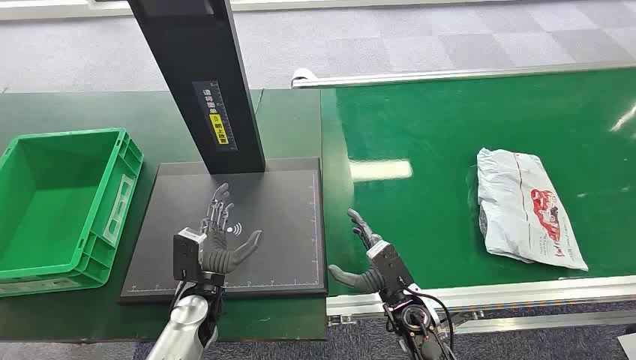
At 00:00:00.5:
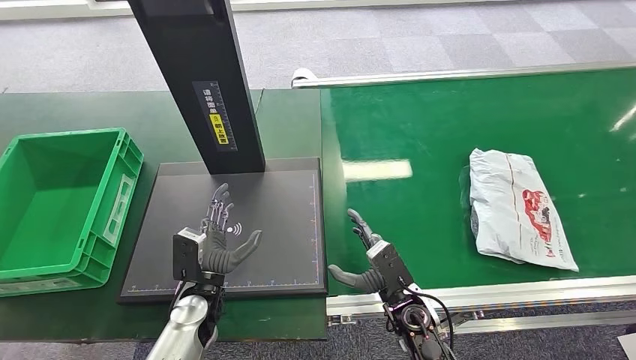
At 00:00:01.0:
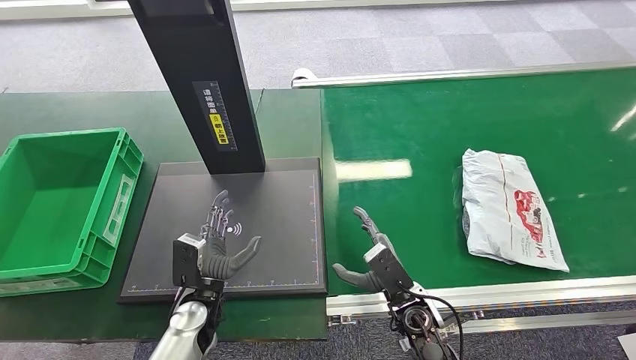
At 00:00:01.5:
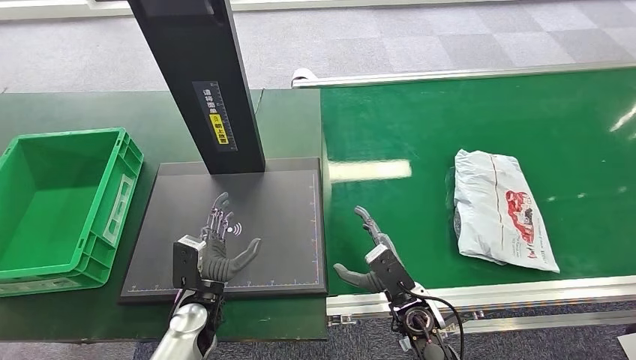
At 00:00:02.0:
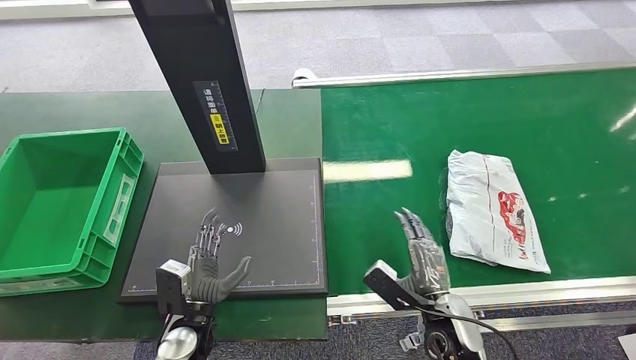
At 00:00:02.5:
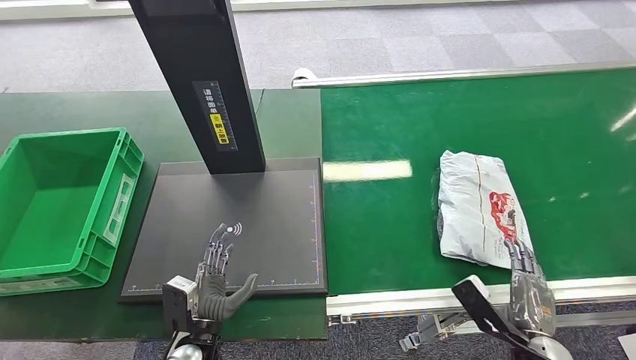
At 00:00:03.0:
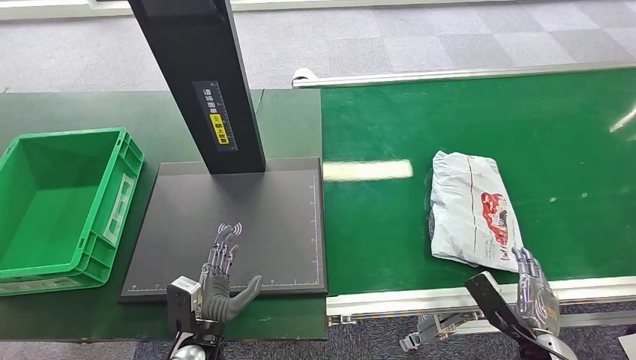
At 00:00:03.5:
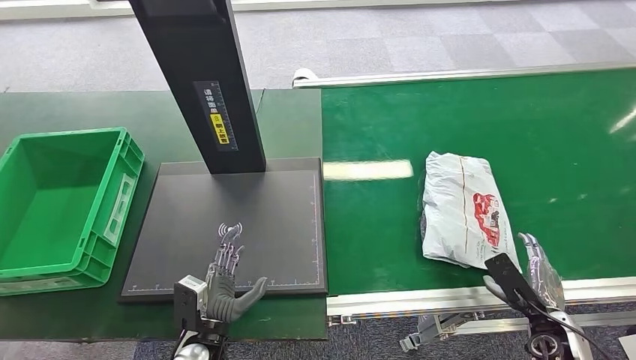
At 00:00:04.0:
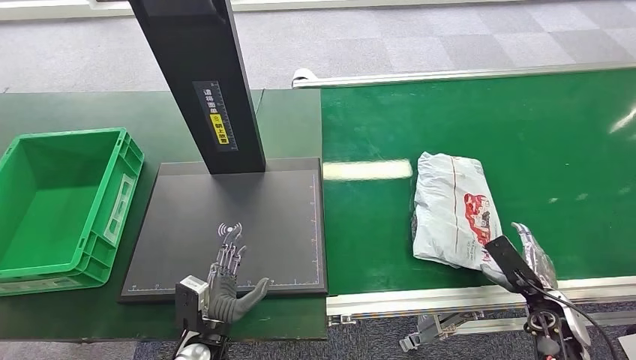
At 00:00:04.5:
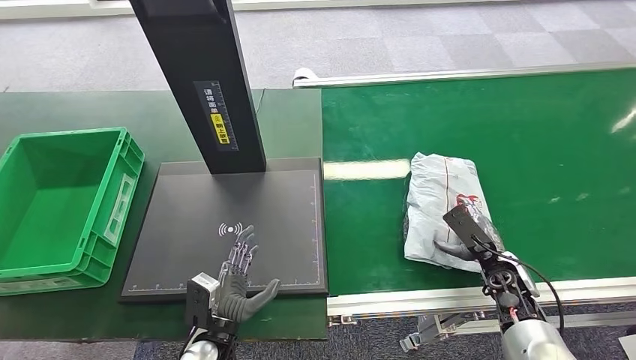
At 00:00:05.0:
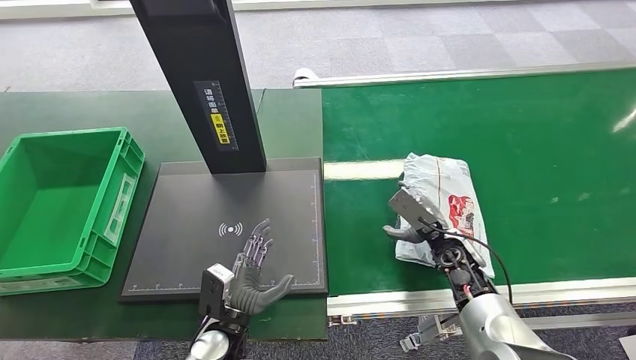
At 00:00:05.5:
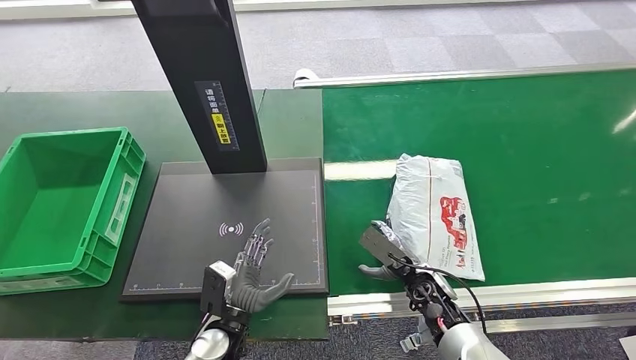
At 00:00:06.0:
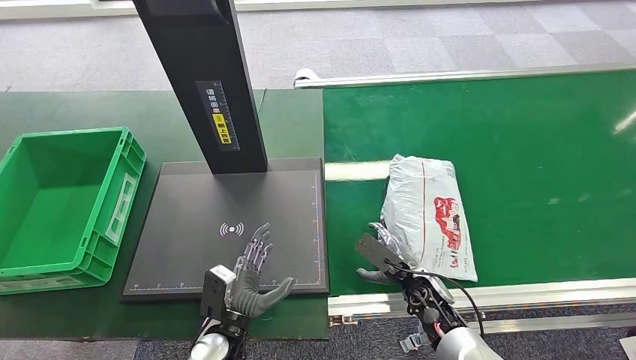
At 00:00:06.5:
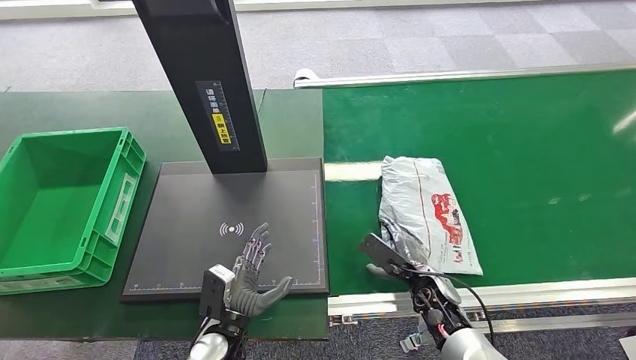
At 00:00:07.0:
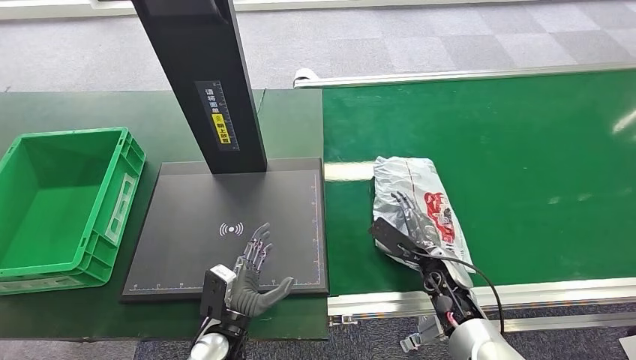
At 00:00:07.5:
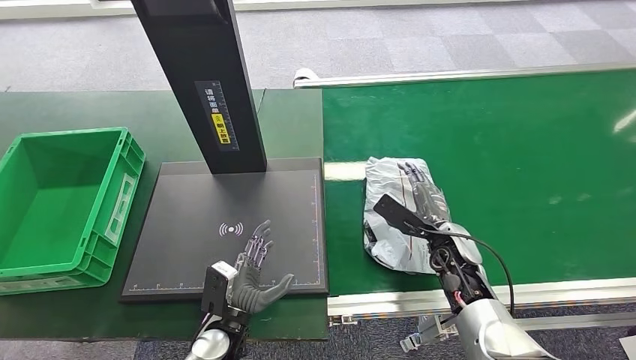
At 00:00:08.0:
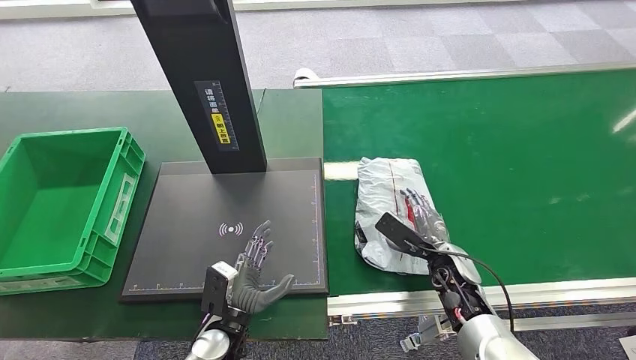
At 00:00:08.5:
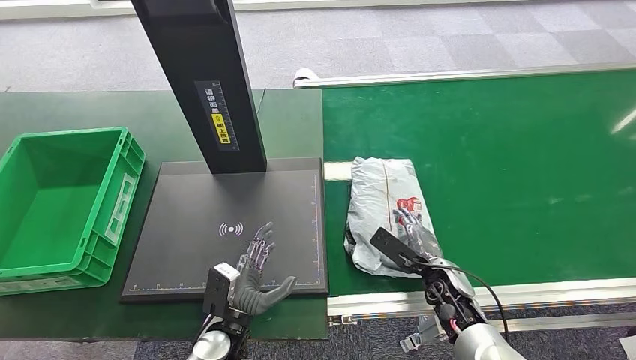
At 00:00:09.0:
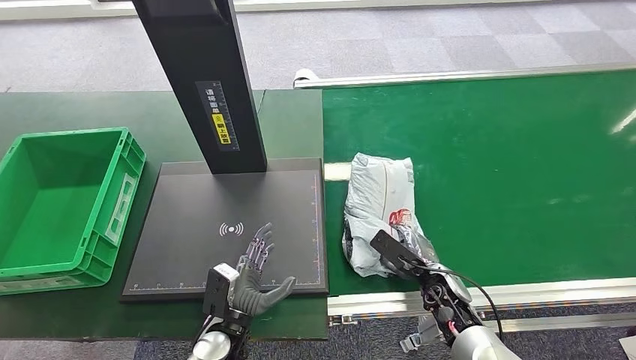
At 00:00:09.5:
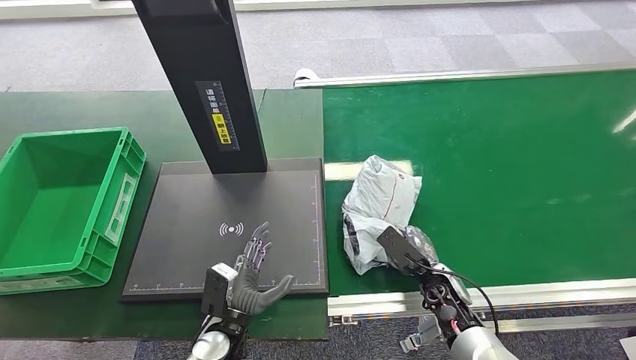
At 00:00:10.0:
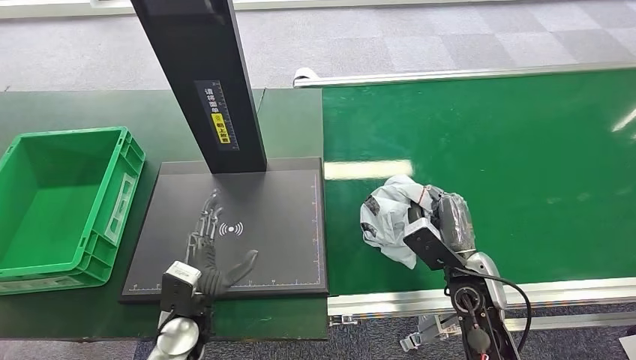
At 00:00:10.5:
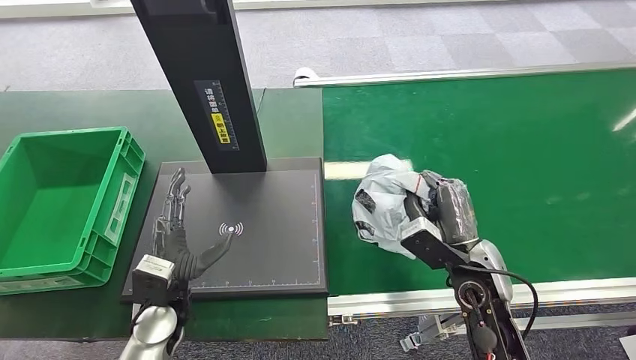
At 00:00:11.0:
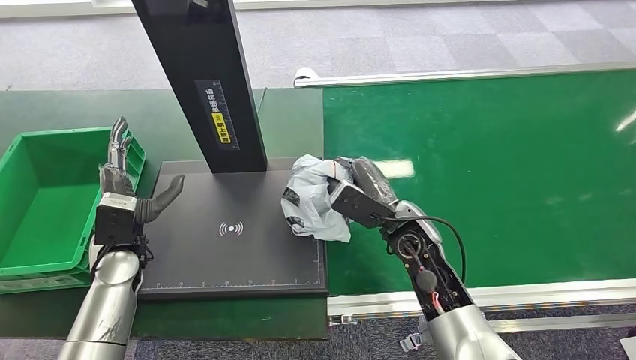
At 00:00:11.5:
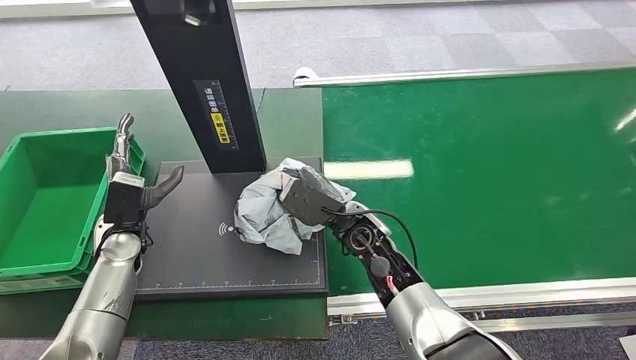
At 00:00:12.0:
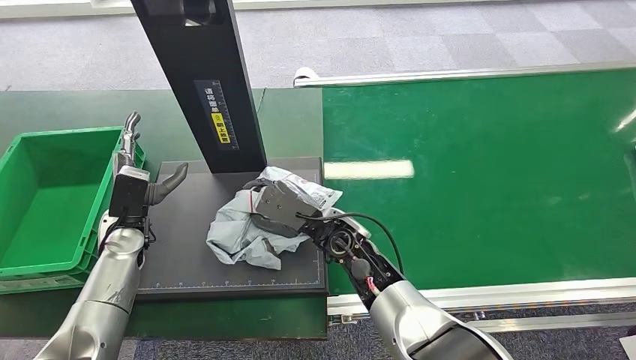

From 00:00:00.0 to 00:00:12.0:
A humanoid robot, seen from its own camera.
Step, from 00:00:00.0 to 00:00:11.0: Pick up the package from the conveyor belt.
From 00:00:02.0 to 00:00:04.0: The right hand is displaced to the right by approximately 20 cm.
From 00:00:04.0 to 00:00:06.0: The right hand travels to the left by approximately 20 cm.
From 00:00:08.0 to 00:00:10.0: The left hand is displaced to the left by roughly 5 cm. Meanwhile the right hand heads upward and backward, covering some 10 cm.
From 00:00:10.0 to 00:00:12.0: The left hand shifts roughly 20 cm to the left, forward and upward; the right hand moves to the left, some 20 cm.

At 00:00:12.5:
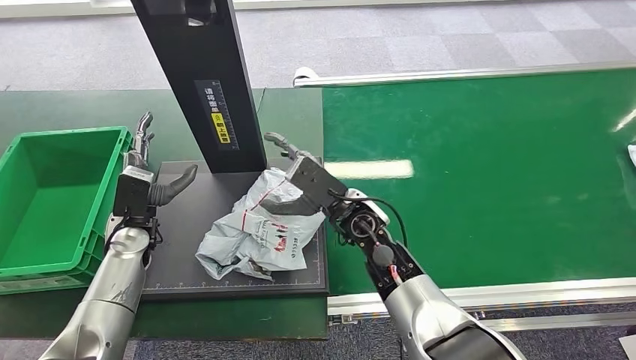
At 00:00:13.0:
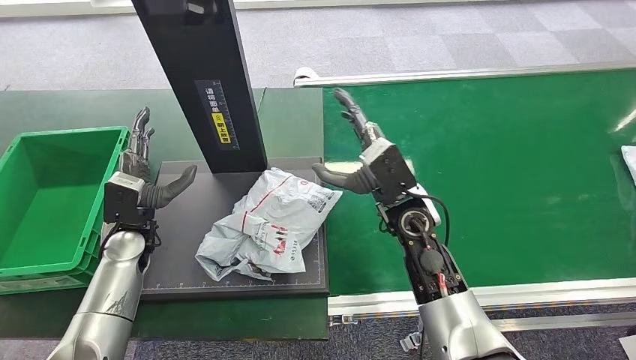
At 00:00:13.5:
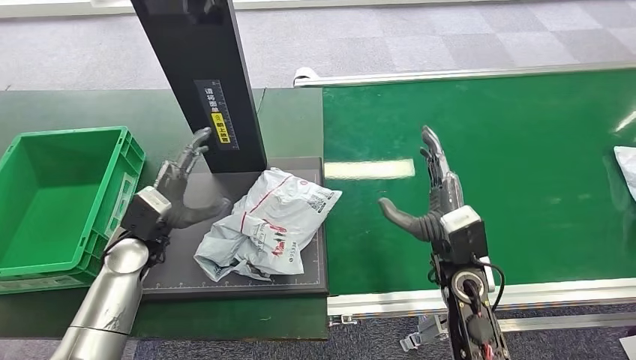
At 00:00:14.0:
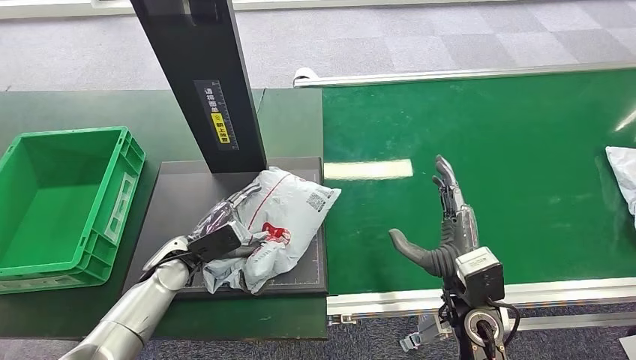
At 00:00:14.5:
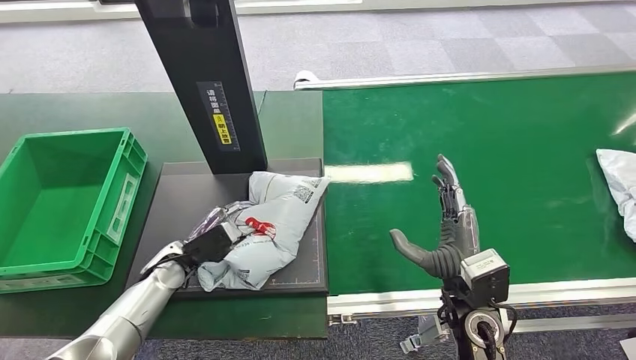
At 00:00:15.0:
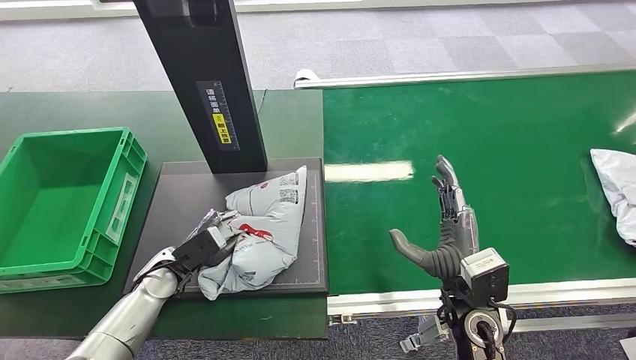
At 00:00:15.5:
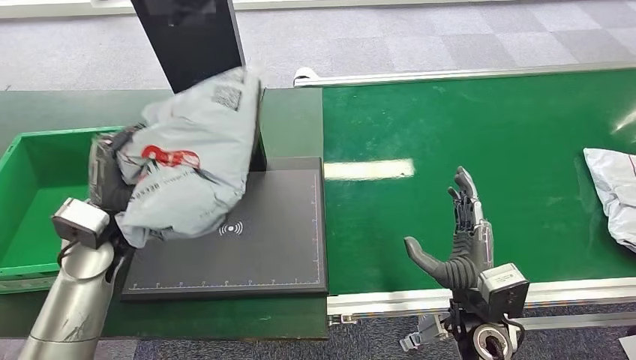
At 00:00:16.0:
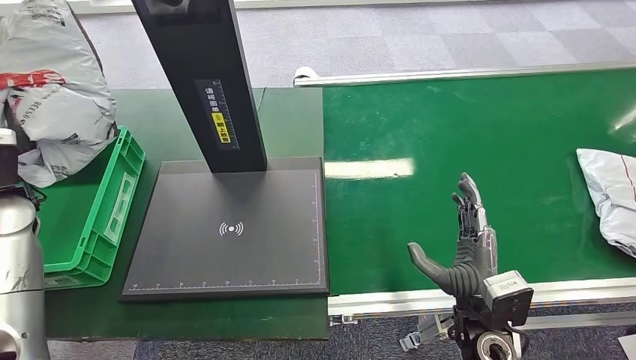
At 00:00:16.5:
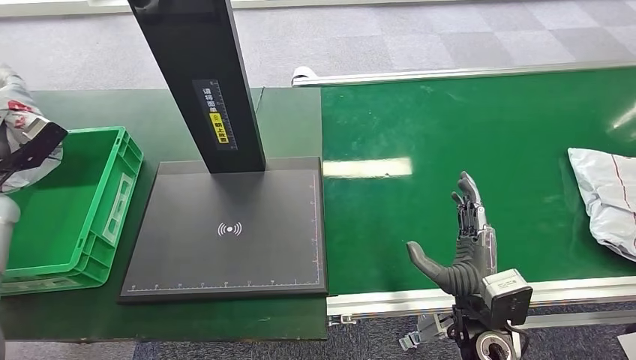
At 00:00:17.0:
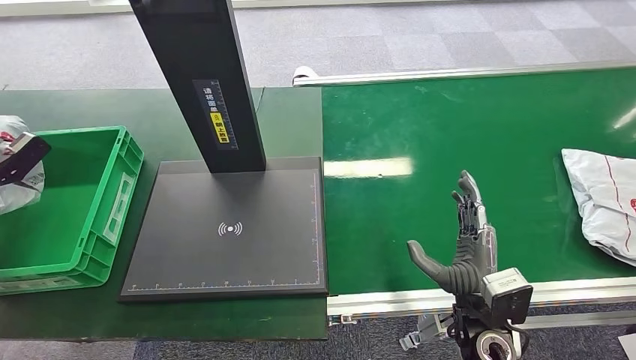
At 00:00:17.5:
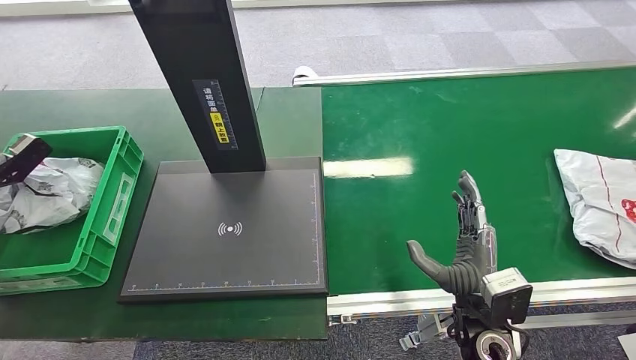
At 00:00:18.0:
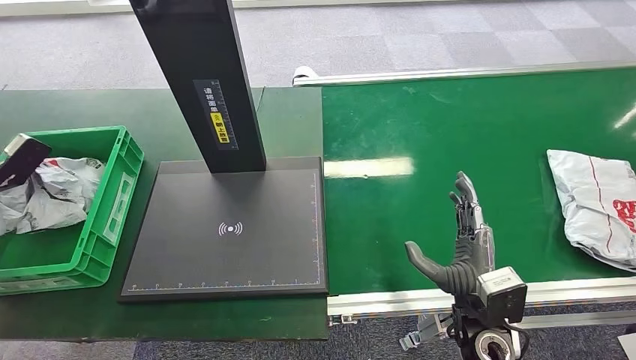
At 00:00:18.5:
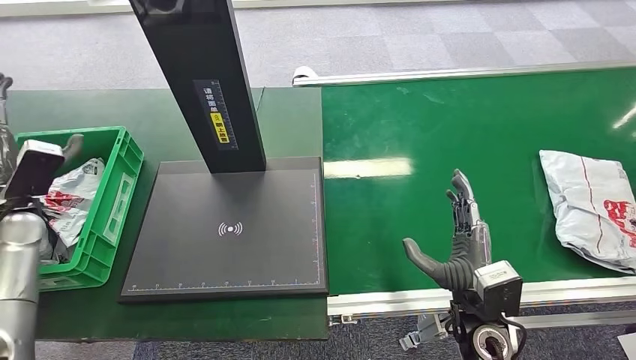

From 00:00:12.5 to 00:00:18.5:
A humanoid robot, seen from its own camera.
Step, from 00:00:13.5 to 00:00:15.0: Pick up the package from the inbound machine.
Step, from 00:00:16.0 to 00:00:18.5: Place the package into the parcel locker.
From 00:00:16.5 to 00:00:18.5: The left hand travels to the right by roughly 5 cm.
